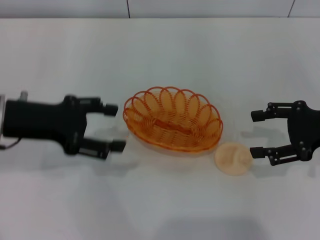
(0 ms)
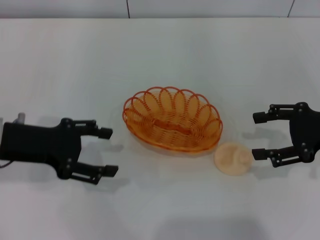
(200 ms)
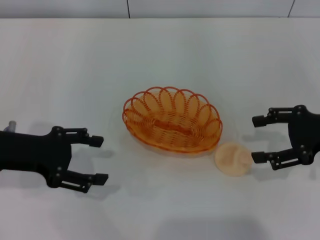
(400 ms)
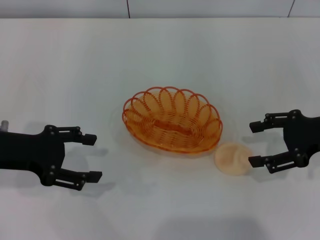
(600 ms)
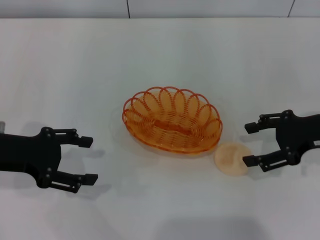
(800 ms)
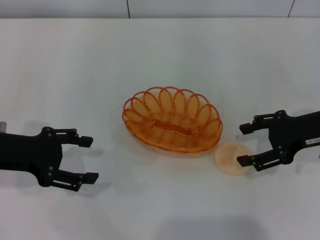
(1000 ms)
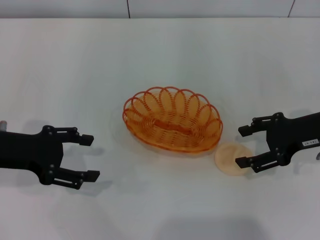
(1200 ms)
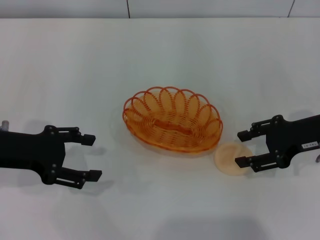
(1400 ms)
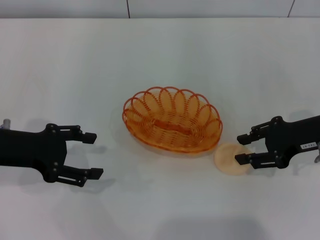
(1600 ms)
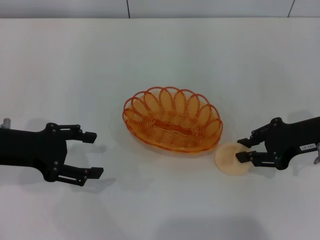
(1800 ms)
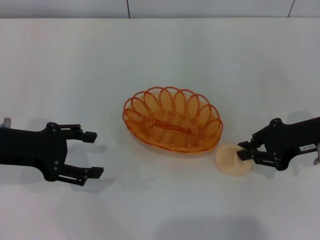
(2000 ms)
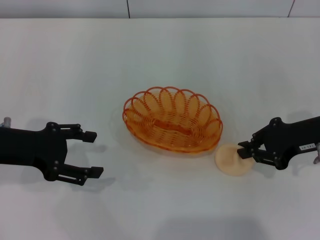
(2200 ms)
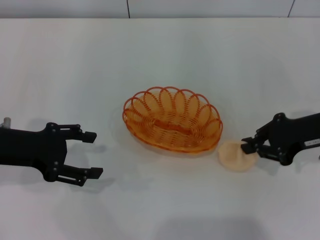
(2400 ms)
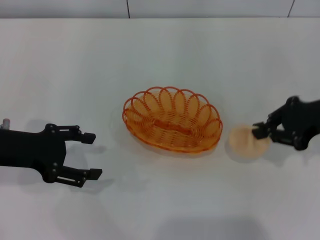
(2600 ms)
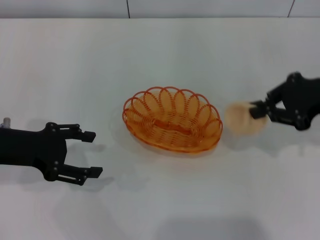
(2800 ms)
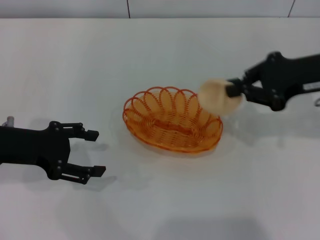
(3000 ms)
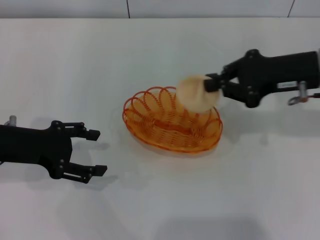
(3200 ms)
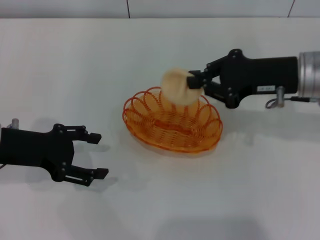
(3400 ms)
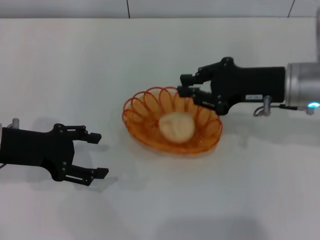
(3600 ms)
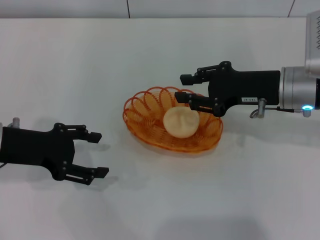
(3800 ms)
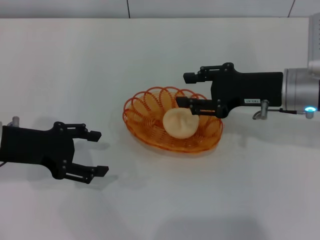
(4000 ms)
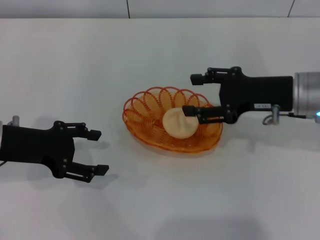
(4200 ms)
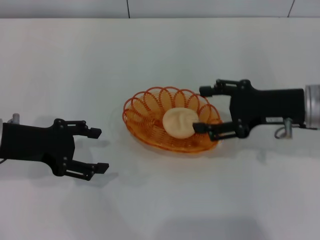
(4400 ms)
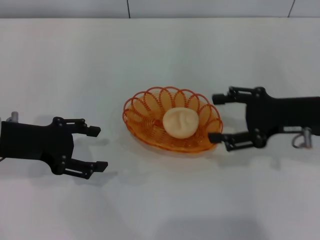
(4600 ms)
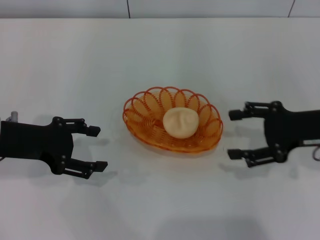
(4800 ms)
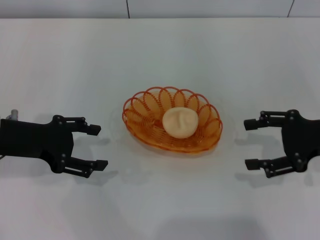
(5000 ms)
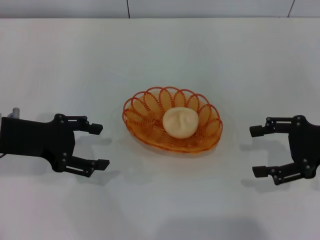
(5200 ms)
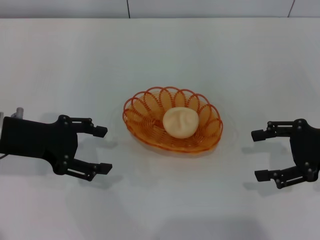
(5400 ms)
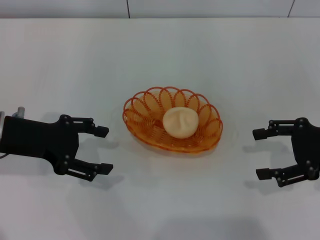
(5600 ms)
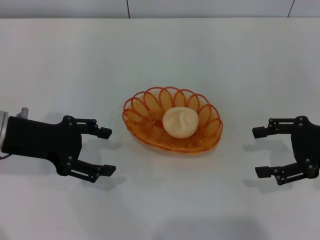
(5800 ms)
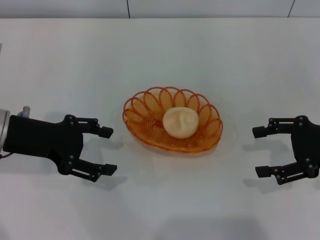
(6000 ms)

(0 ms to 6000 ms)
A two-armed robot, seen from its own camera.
Step, 0 ms - 2800 ms: Pick up the egg yolk pastry with the right gripper.
Step, 3200 ms - 4800 ms: Place the egg yolk pastry into the basket with the right gripper.
0 ms - 1600 ms: The grippers stay close to where they were, moving slightly.
1600 ms - 3000 ms: The right gripper heads upward, covering approximately 10 cm, and closes up.
3000 ms - 4400 ms: The right gripper is displaced downward by roughly 5 cm, and opens up.
4400 ms - 6000 ms: The right gripper shifts some 10 cm to the right.

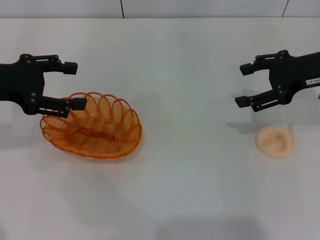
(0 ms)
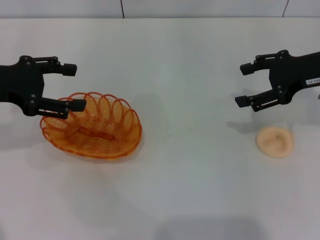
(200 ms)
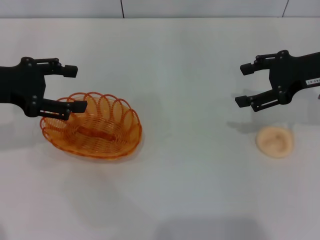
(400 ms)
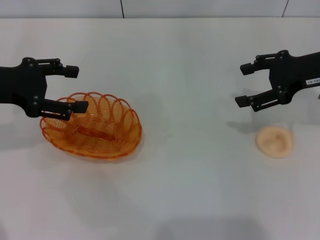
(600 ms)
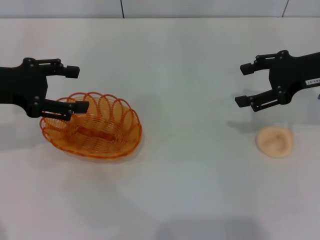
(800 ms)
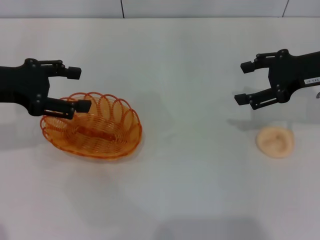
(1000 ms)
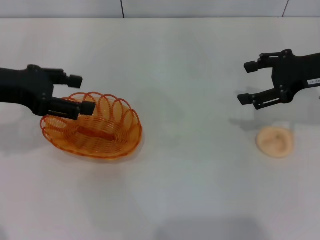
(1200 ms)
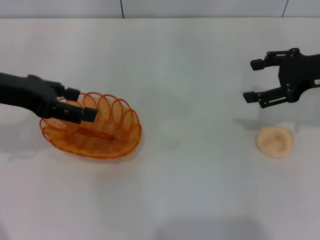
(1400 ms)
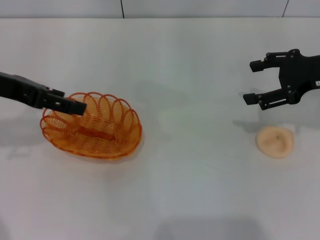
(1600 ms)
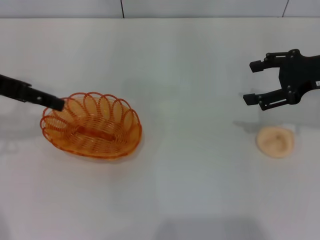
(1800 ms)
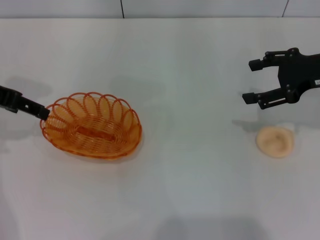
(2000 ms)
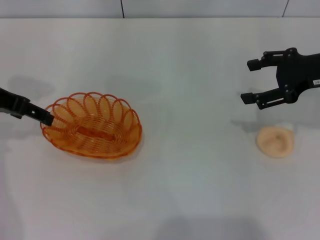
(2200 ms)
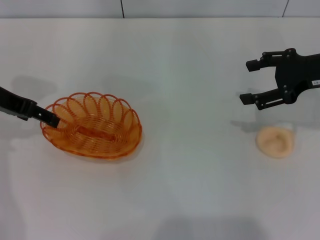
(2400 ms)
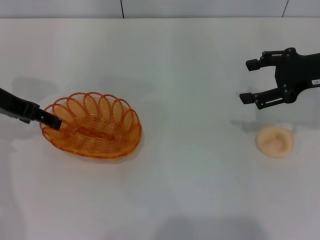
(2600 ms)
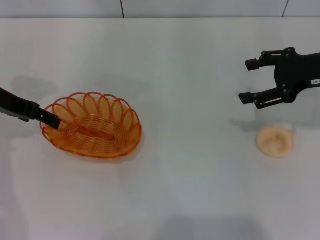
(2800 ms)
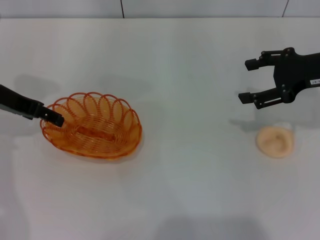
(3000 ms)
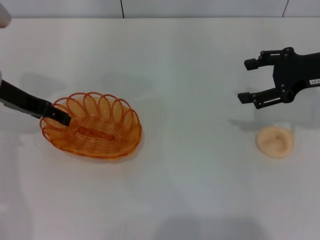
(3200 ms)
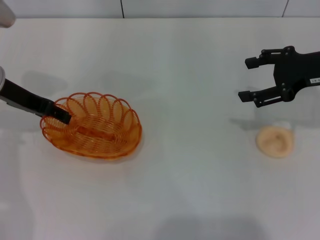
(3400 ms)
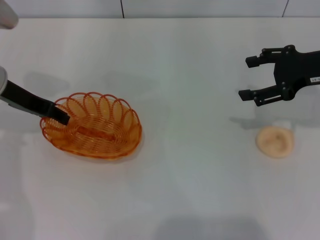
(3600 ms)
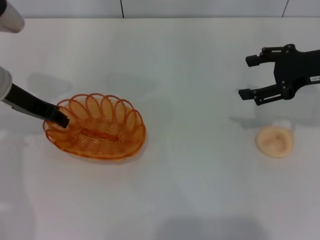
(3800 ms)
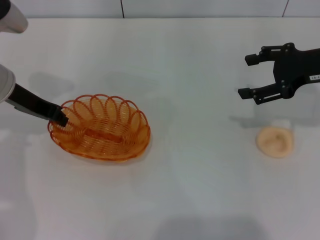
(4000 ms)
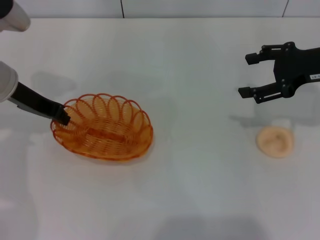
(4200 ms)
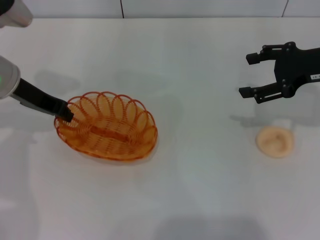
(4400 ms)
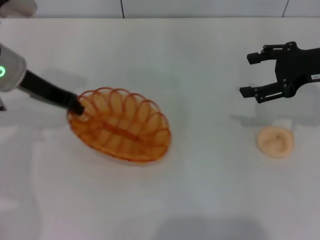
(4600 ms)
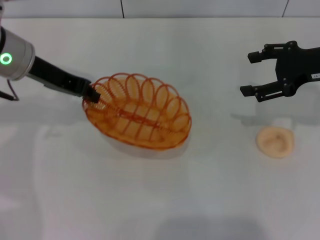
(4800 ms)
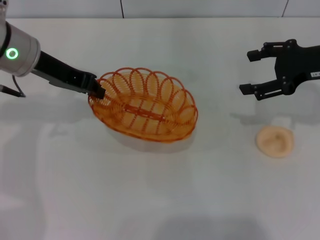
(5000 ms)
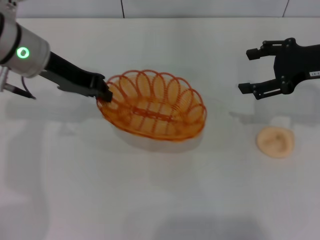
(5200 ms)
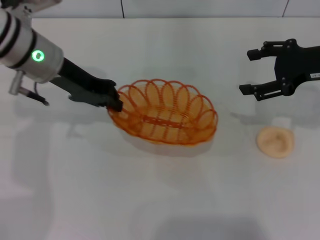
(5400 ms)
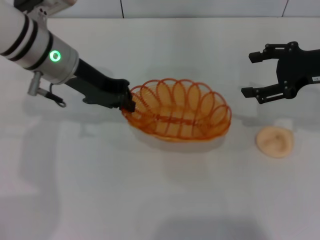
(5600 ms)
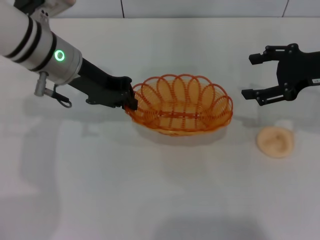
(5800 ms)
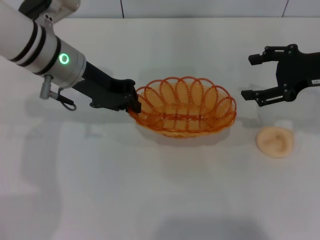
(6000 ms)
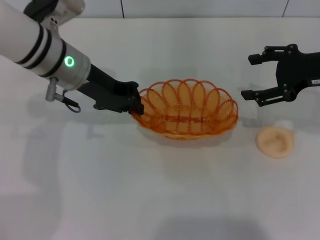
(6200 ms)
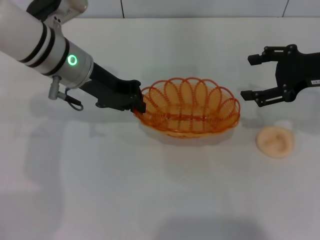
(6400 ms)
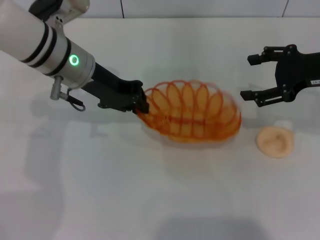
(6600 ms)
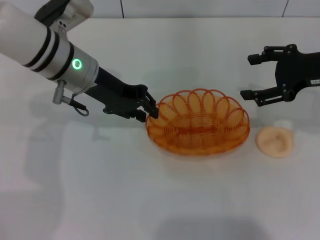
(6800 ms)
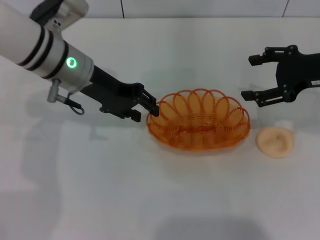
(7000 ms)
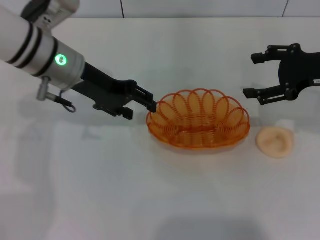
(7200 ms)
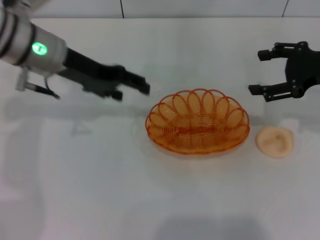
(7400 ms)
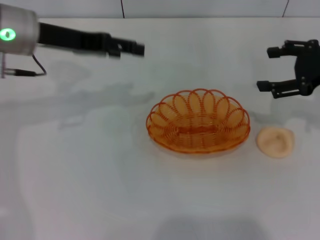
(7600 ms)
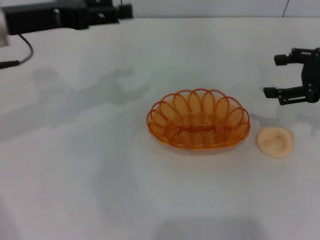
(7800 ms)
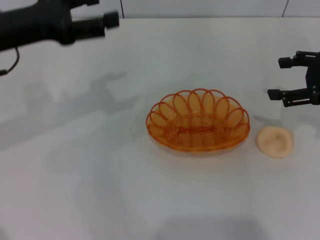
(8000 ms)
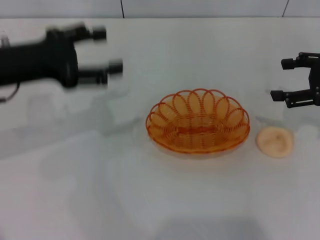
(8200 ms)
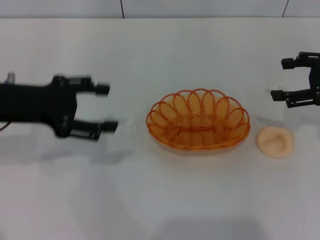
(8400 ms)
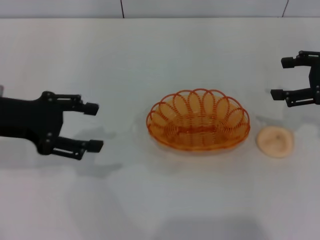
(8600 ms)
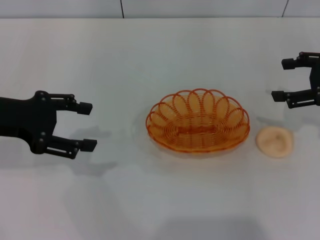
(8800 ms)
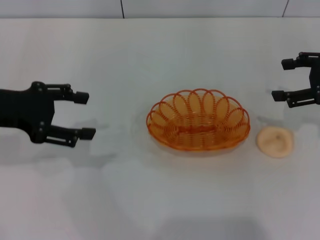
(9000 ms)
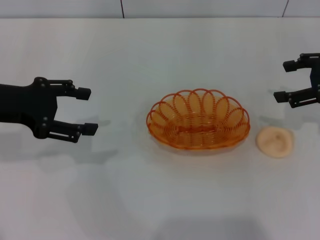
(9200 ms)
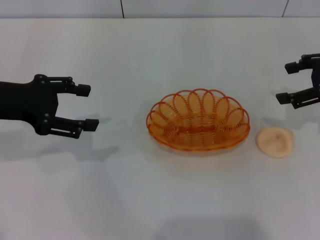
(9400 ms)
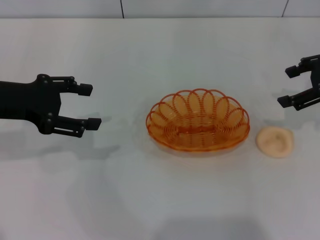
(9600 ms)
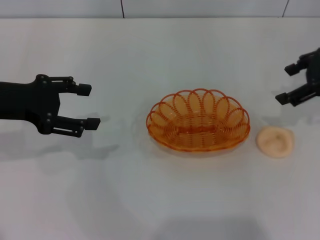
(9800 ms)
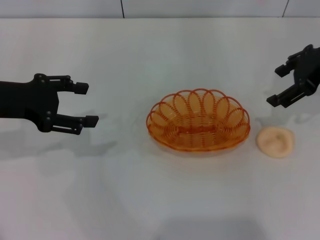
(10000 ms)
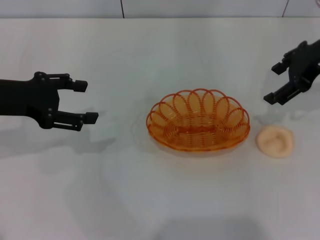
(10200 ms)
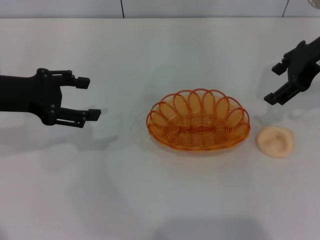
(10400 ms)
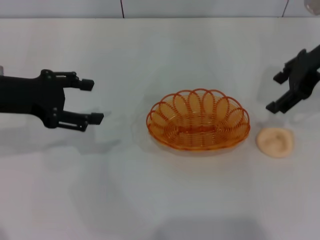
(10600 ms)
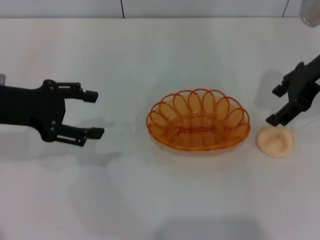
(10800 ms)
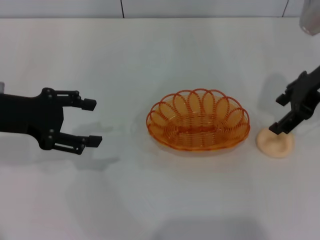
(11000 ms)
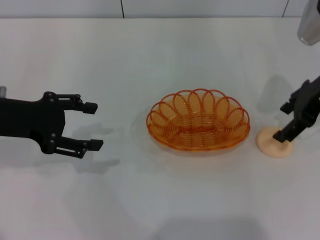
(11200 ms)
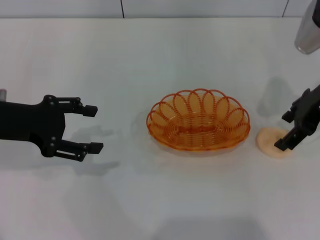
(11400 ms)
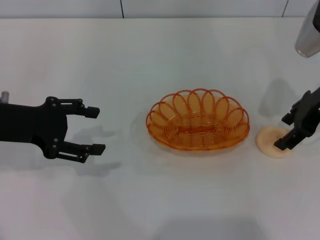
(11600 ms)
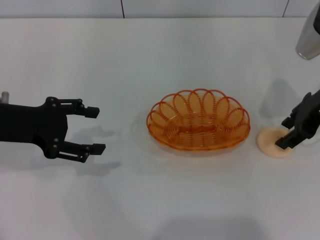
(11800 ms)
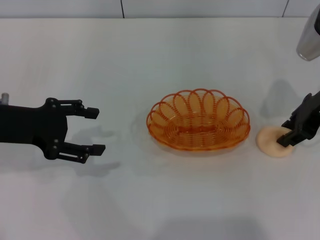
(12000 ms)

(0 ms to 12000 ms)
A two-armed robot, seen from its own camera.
Step, 0 ms - 4600 ms: Pick up the basket with the left gripper.
Step, 4800 ms - 7200 ms: Place the basket in the center of view with the left gripper.
1600 ms - 3000 ms: The left gripper is displaced downward by roughly 5 cm.
3000 ms - 4400 ms: The left gripper closes.
4400 ms - 6000 ms: The left gripper is displaced to the right by approximately 10 cm.
6000 ms - 7600 ms: The left gripper heads to the left, covering approximately 5 cm, and opens up.
7600 ms - 9000 ms: The left gripper goes approximately 10 cm backward and to the left.
9000 ms - 10400 ms: The right gripper moves to the left and upward, approximately 10 cm.
10400 ms - 12000 ms: The right gripper heads downward, covering roughly 5 cm.

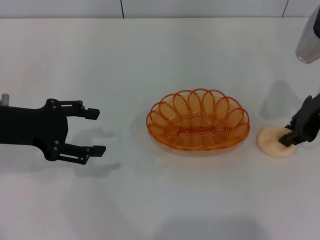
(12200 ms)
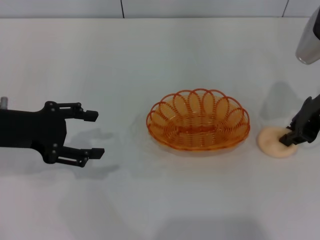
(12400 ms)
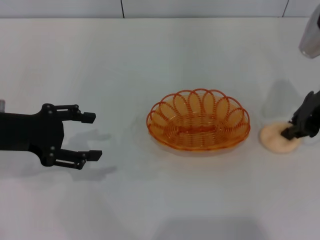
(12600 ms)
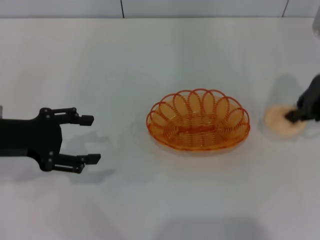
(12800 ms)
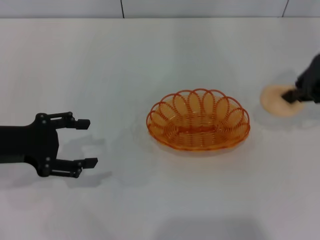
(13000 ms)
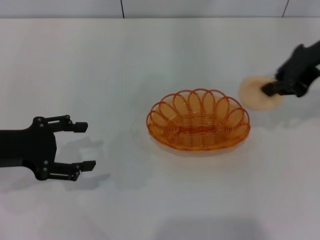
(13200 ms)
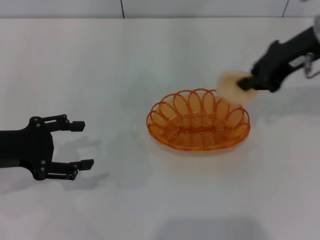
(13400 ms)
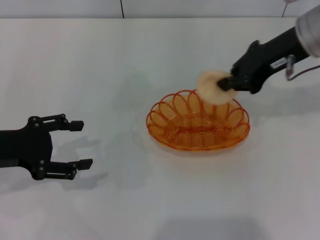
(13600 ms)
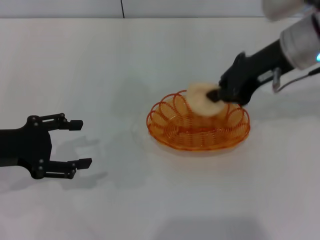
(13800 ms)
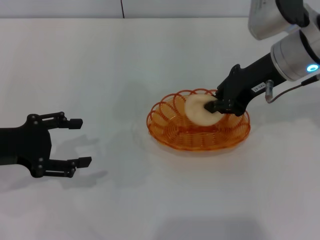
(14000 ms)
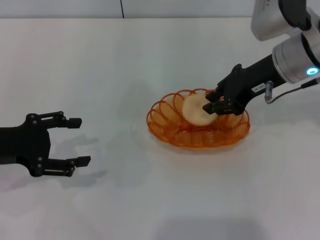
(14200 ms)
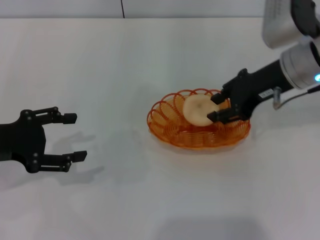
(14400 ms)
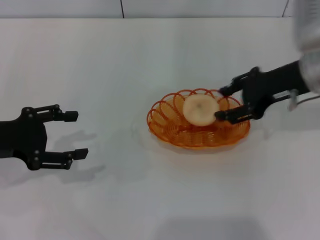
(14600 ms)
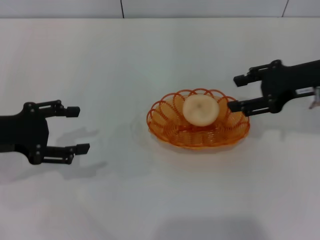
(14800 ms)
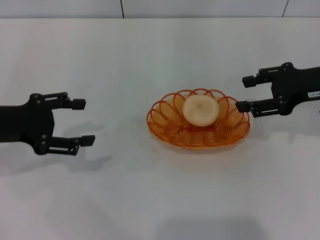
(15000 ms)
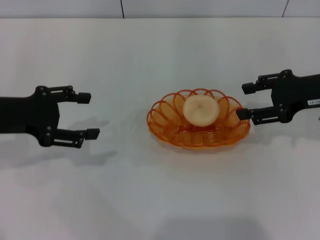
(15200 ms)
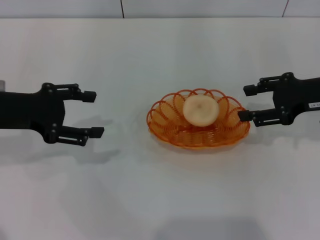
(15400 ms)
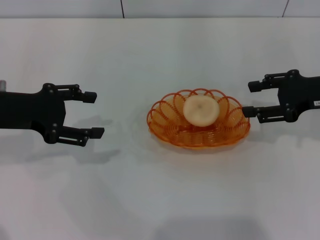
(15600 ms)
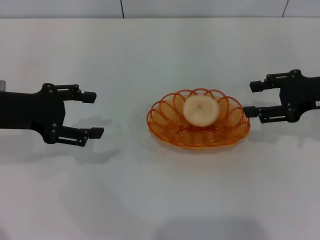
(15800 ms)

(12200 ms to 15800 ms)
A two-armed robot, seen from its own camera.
Step, 13200 ms - 14600 ms: Place the egg yolk pastry into the basket with the right gripper.
12200 ms - 14000 ms: The right gripper shifts about 10 cm to the left, and closes.
14000 ms - 15800 ms: The left gripper changes place by roughly 5 cm, while the right gripper moves to the right and downward, some 15 cm, and opens up.
